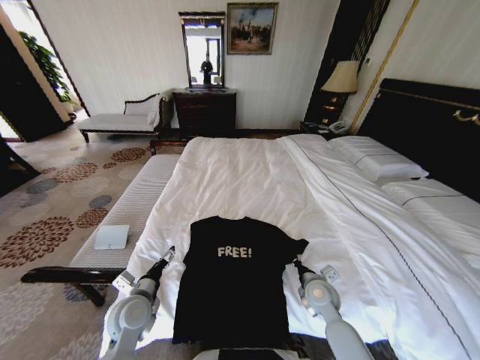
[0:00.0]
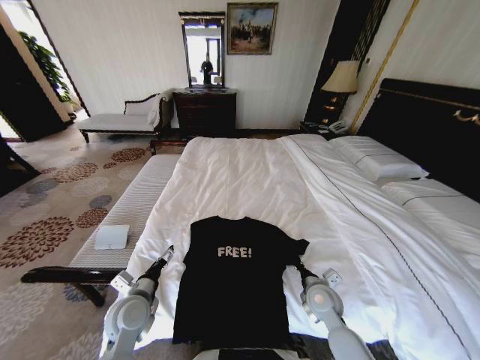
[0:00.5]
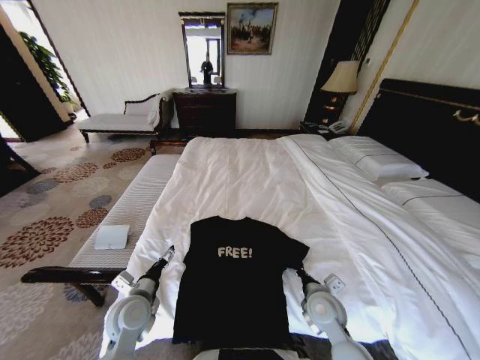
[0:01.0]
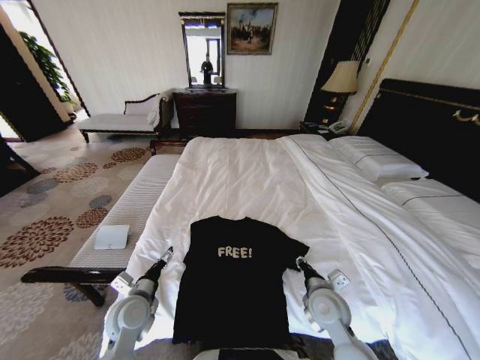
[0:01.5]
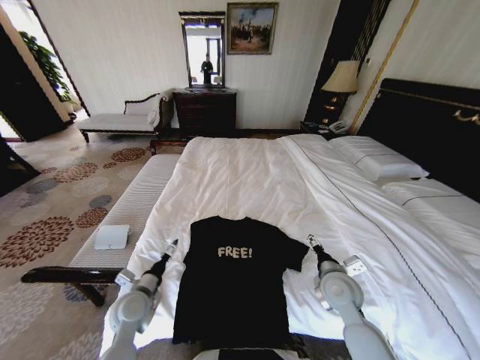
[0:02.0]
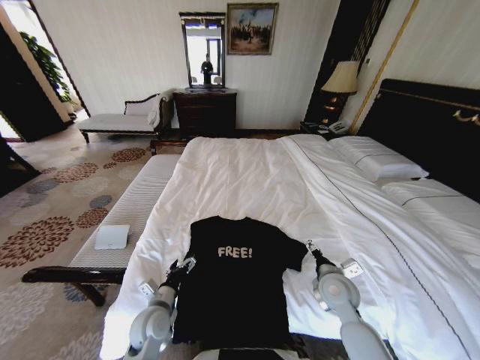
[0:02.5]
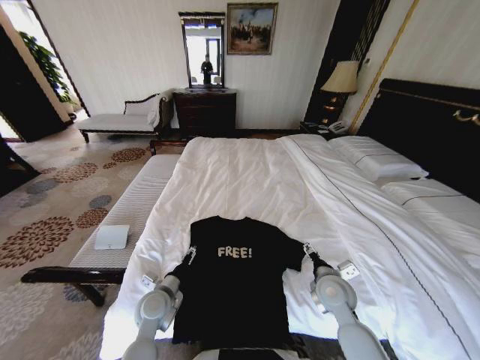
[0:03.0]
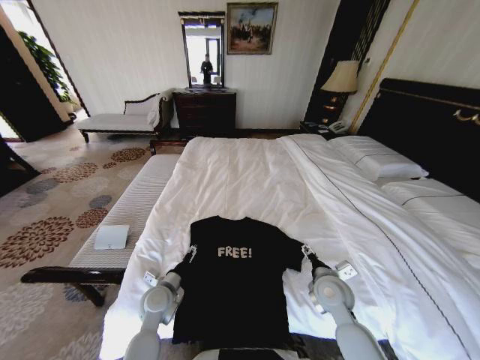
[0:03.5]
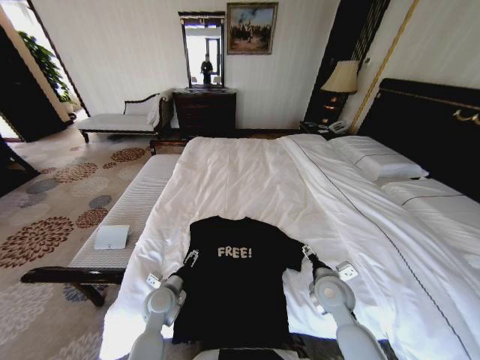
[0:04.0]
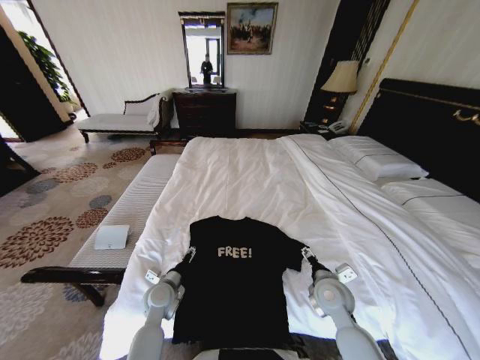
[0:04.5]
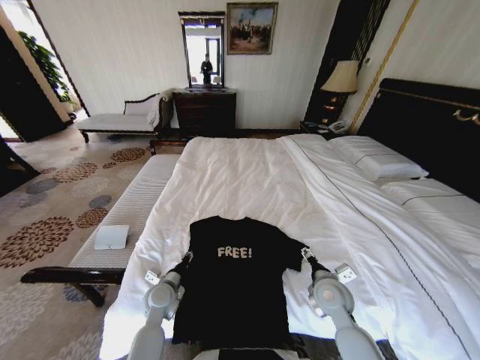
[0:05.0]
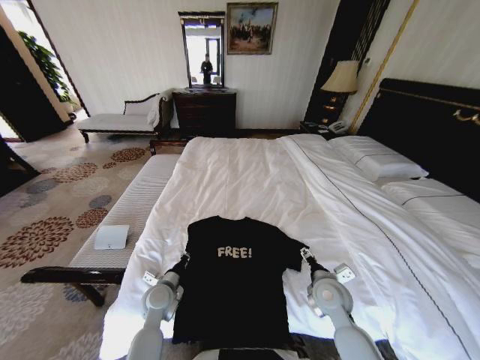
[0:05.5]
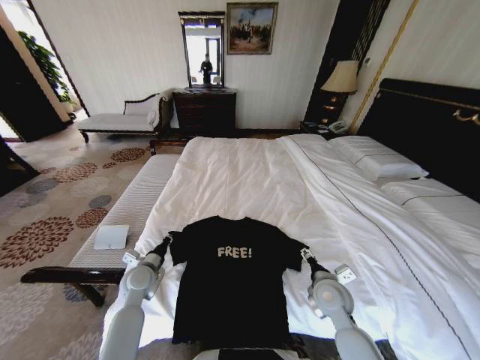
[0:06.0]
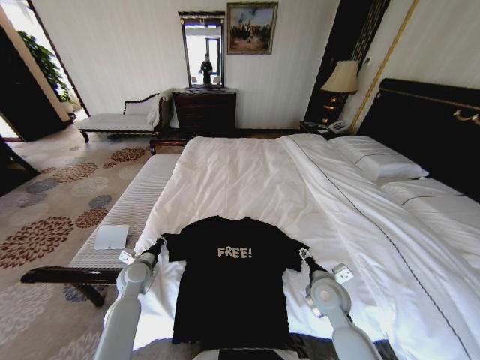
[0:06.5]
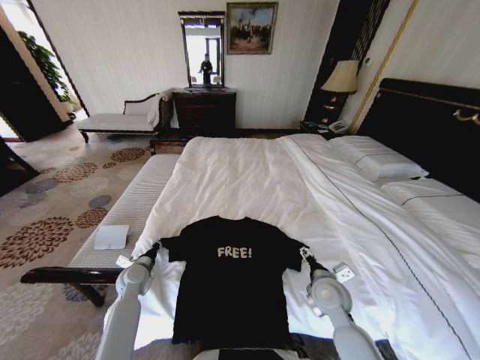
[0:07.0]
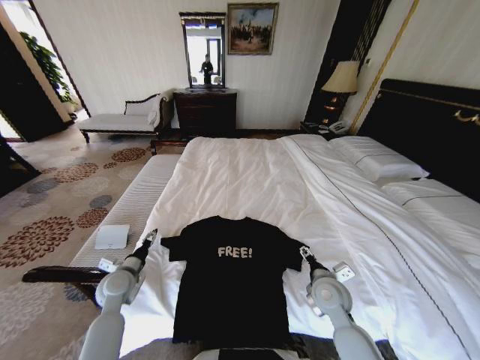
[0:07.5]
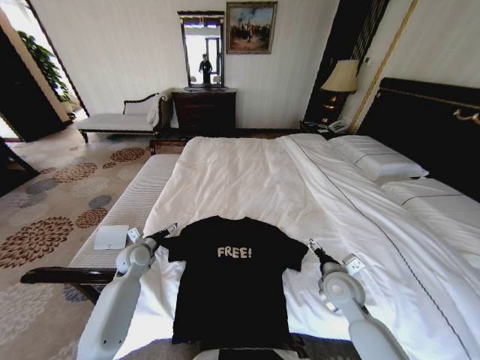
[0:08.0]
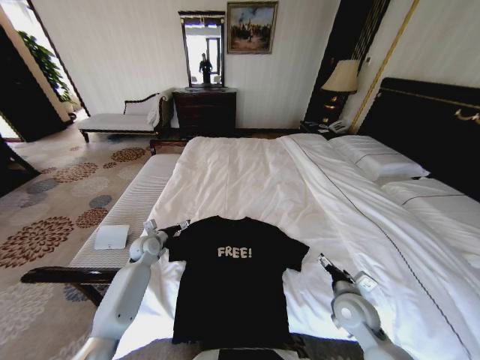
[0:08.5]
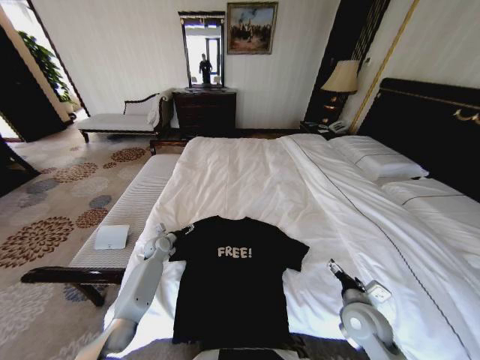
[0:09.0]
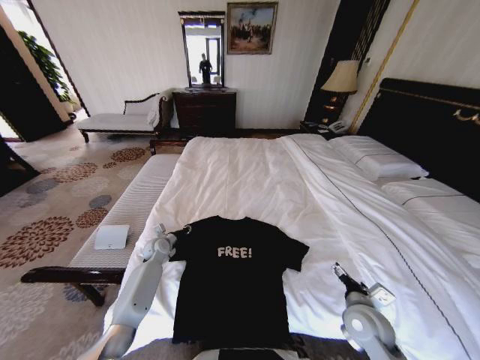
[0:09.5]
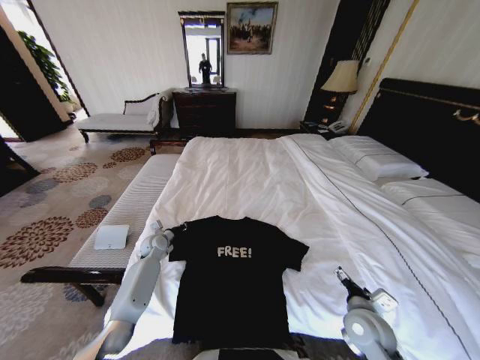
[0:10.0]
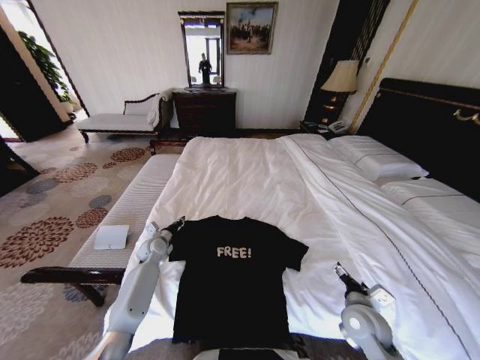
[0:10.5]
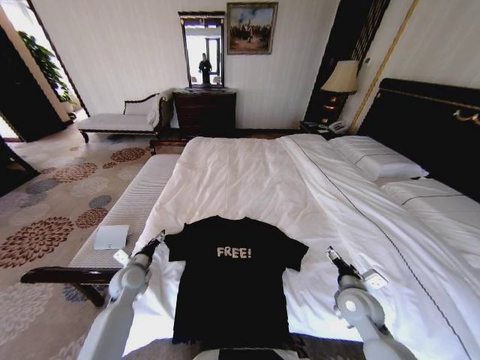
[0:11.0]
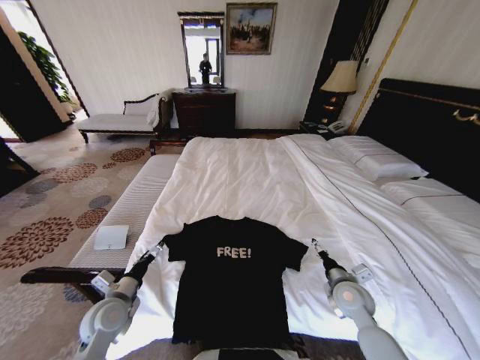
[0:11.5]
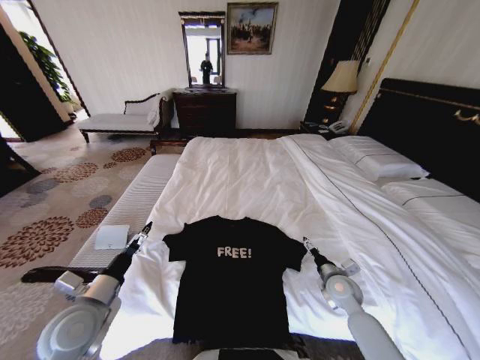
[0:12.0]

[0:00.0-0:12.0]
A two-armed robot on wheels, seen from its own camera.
Task of the whole recording: Fold the clothes on the bed.
0:00.0 to 0:02.0: The right gripper heads upward, covering about 10 cm, and opens up.
0:02.0 to 0:04.0: The left gripper is displaced to the right by some 5 cm.
0:04.0 to 0:06.0: The left gripper heads to the left and forward, covering roughly 10 cm, and closes.
0:06.0 to 0:08.0: The left gripper heads forward, covering some 5 cm, and opens up.
0:08.0 to 0:10.0: The left gripper shifts some 10 cm forward and downward, and closes up; the right gripper heads backward, covering about 10 cm.
0:10.0 to 0:12.0: The right gripper shifts some 10 cm forward, while the left gripper travels backward and upward by some 30 cm, and opens its fingers.

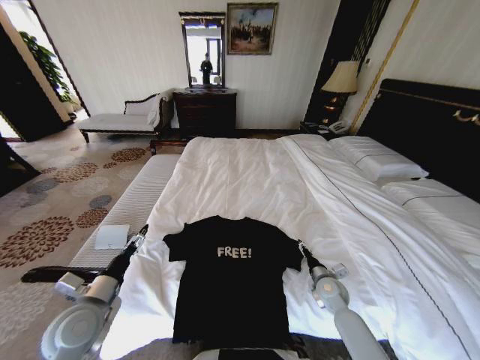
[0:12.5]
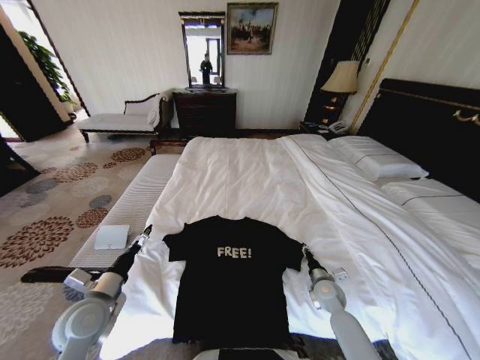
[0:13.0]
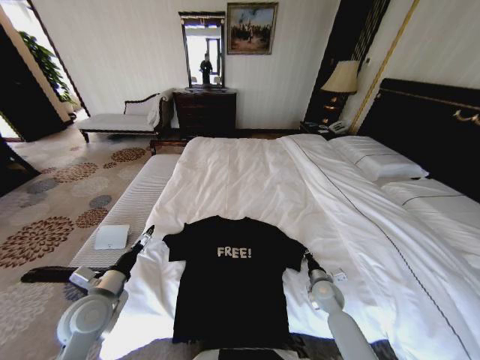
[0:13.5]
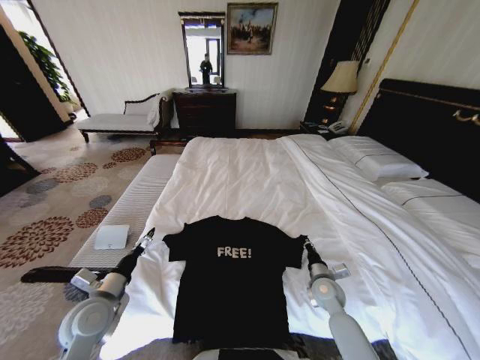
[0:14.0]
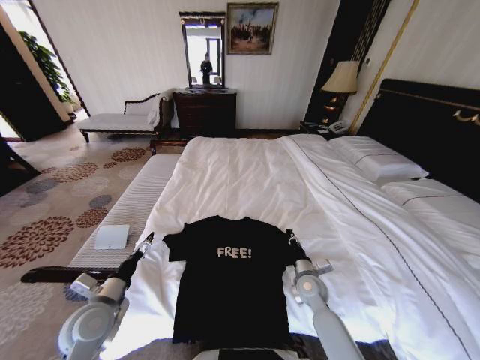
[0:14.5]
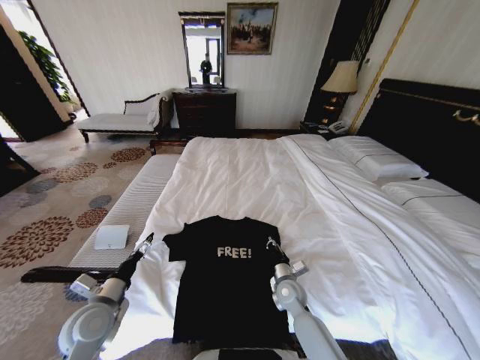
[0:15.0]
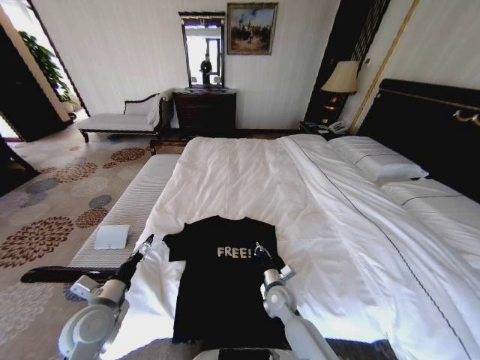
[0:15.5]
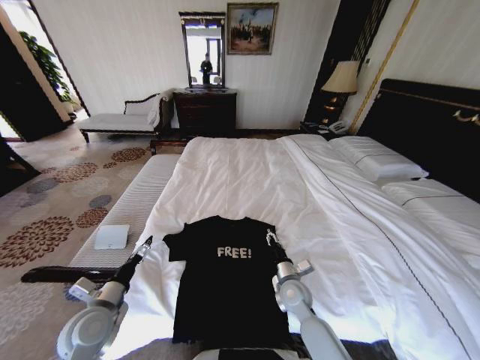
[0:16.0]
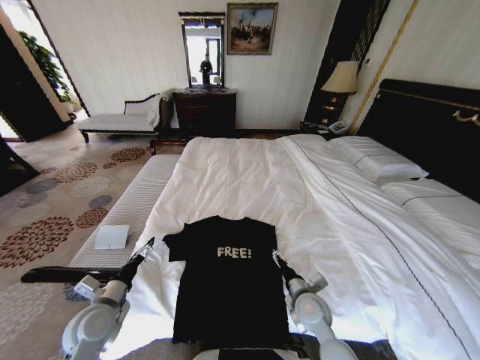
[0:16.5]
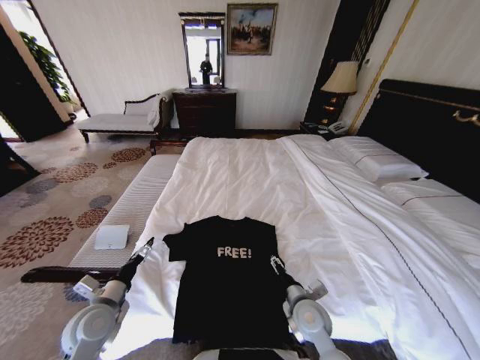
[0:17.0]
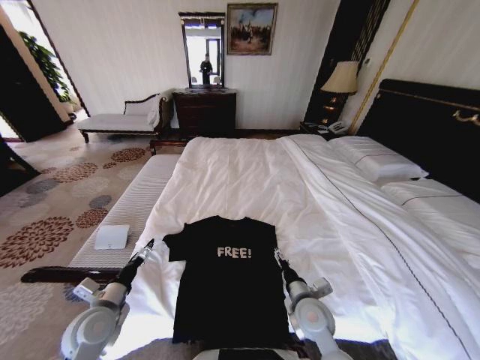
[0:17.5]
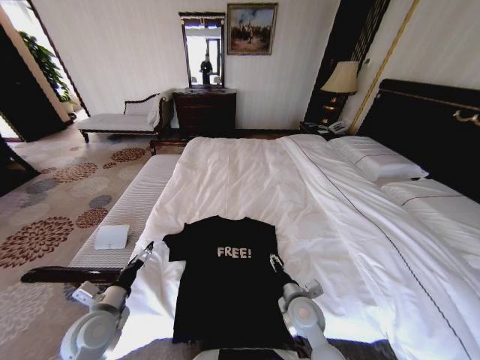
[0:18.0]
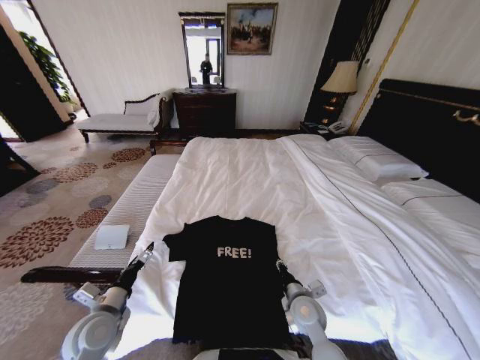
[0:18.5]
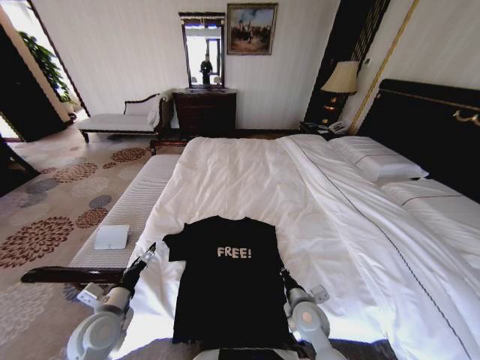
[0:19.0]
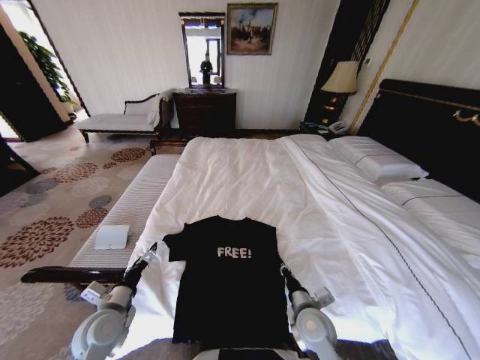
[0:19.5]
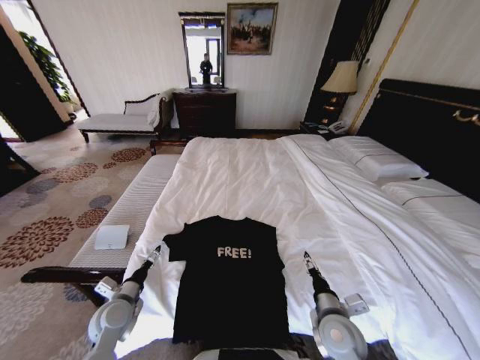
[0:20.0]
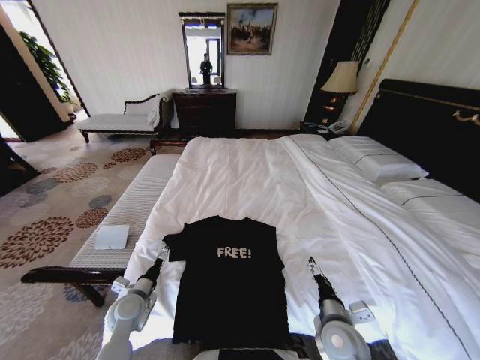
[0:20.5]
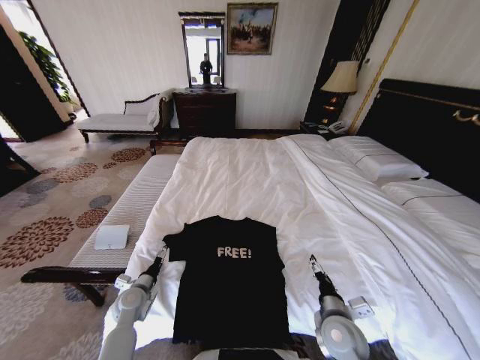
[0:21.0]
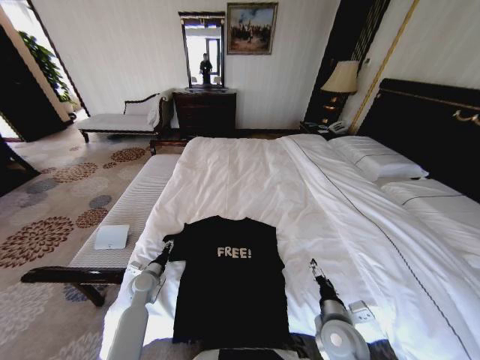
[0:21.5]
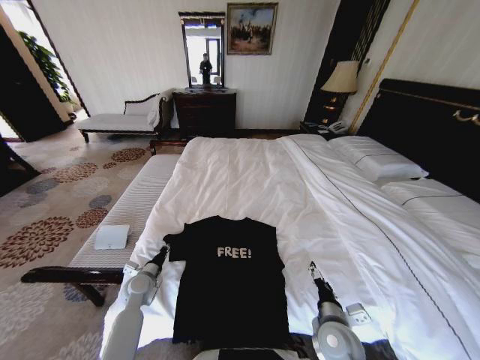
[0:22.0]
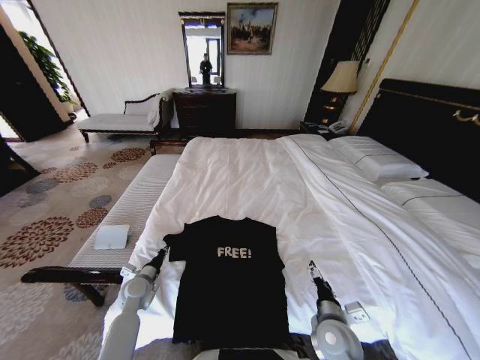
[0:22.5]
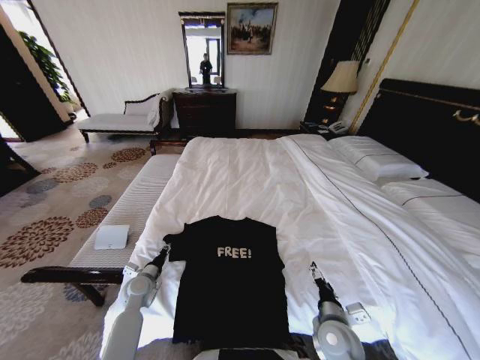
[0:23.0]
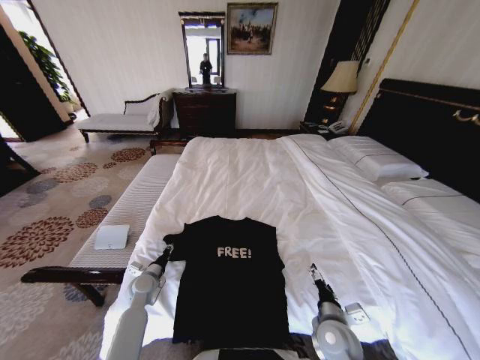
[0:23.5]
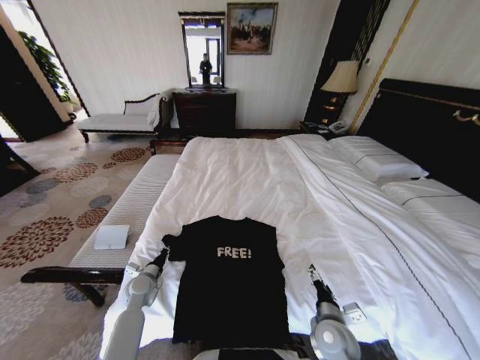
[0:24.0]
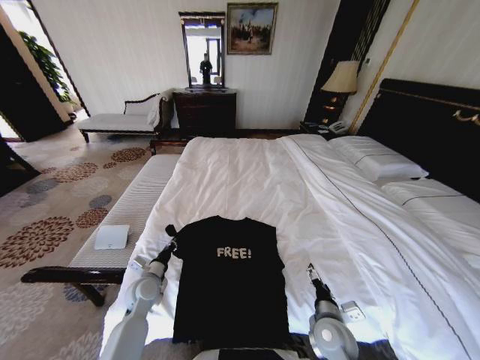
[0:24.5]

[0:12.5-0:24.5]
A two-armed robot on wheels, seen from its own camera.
Task of the whole recording: Fold the clothes on the bed.
0:12.5 to 0:14.5: The right gripper shifts about 5 cm to the left, and closes up.
0:14.5 to 0:16.5: The right gripper moves backward, approximately 5 cm, and opens.
0:16.5 to 0:18.5: The right gripper closes.
0:18.5 to 0:20.5: The left gripper goes roughly 10 cm downward and forward. The right gripper heads backward and to the right, covering about 10 cm, and opens its fingers.
0:20.5 to 0:22.5: The left gripper travels forward by approximately 5 cm, and closes up.
0:22.5 to 0:24.5: The left gripper opens, then closes again.

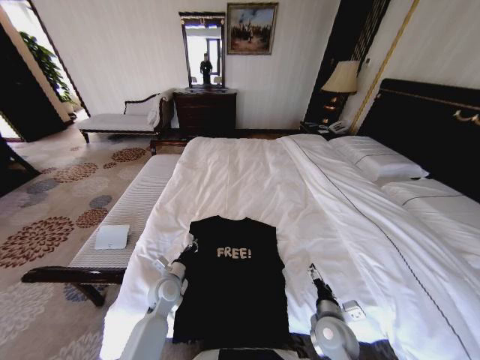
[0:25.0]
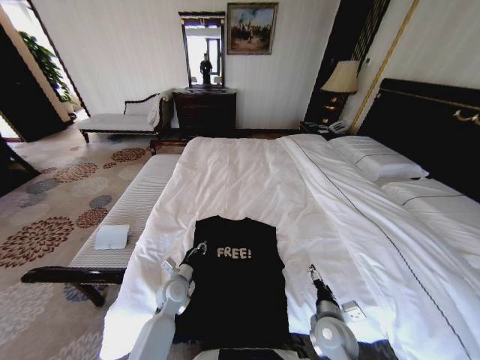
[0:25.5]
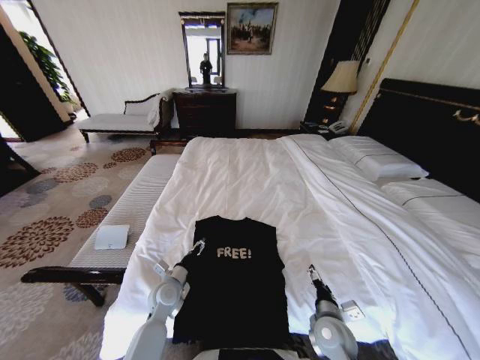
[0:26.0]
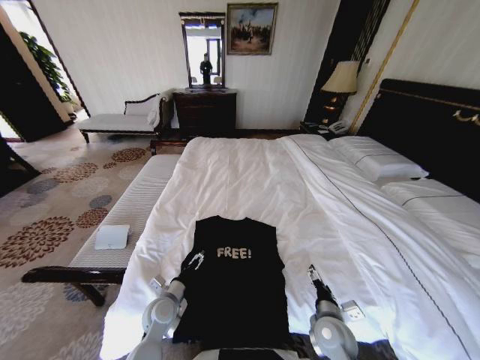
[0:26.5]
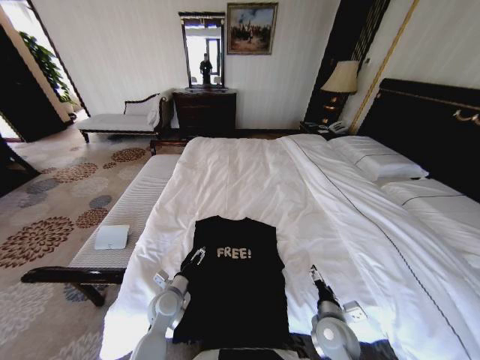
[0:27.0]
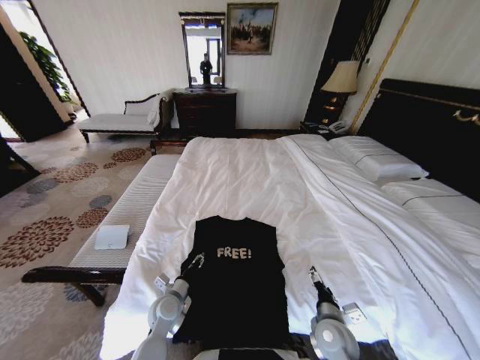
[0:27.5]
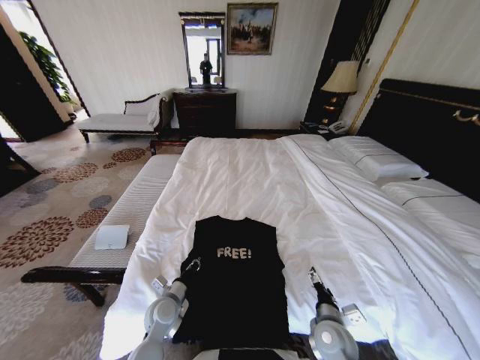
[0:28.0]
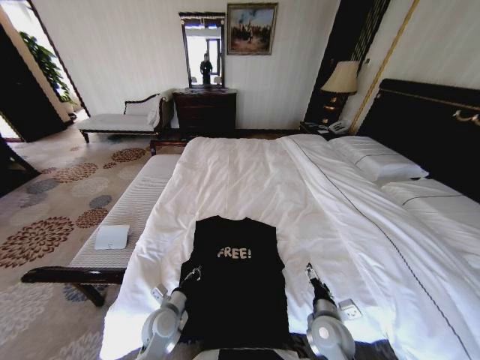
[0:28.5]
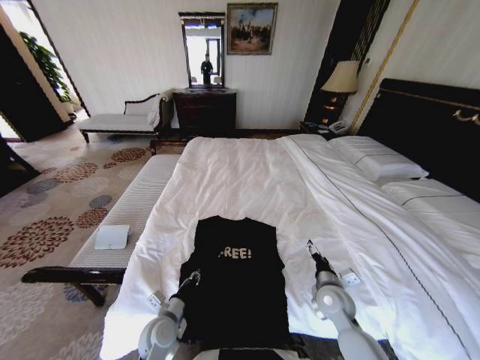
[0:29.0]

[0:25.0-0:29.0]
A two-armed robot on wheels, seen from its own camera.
Task of the whole recording: Fold the clothes on the bed.
0:25.0 to 0:27.0: The left gripper opens.
0:27.0 to 0:29.0: The left gripper is displaced backward by roughly 5 cm, and closes up, while the right gripper is displaced forward by roughly 10 cm.
